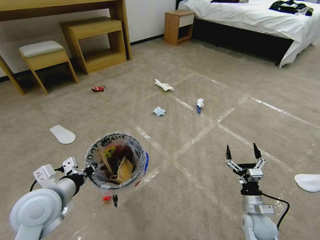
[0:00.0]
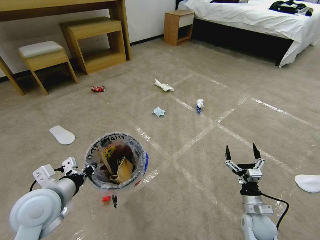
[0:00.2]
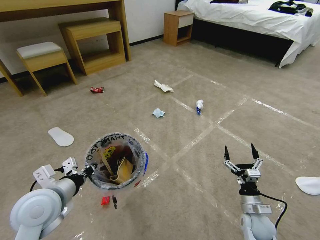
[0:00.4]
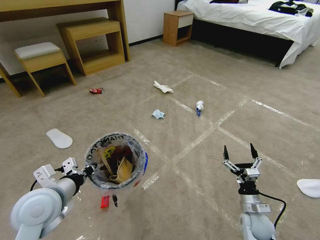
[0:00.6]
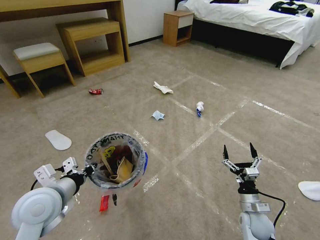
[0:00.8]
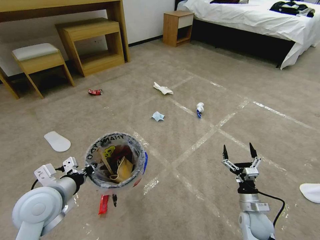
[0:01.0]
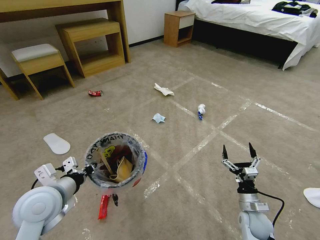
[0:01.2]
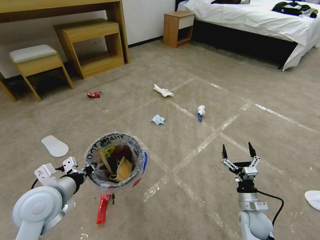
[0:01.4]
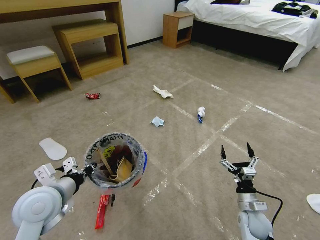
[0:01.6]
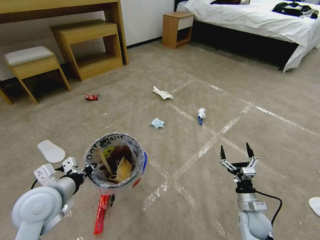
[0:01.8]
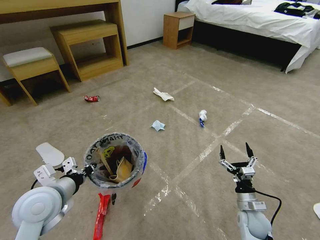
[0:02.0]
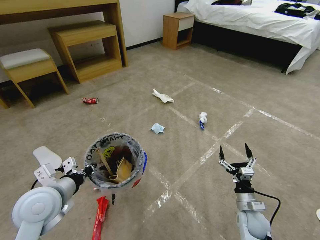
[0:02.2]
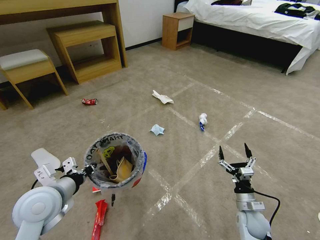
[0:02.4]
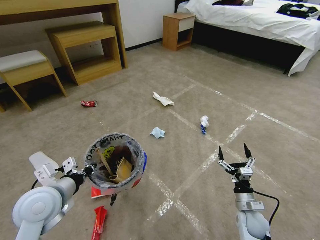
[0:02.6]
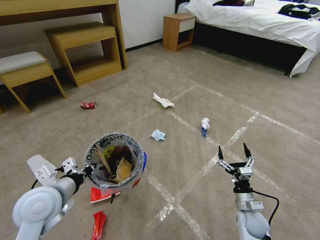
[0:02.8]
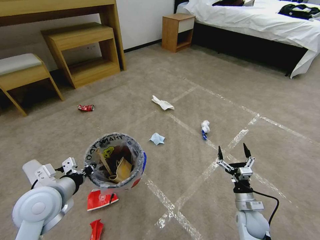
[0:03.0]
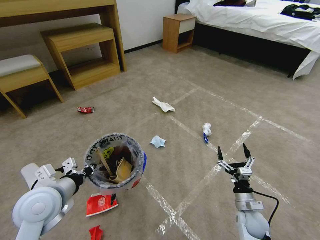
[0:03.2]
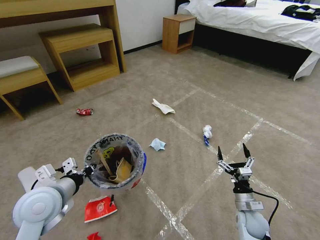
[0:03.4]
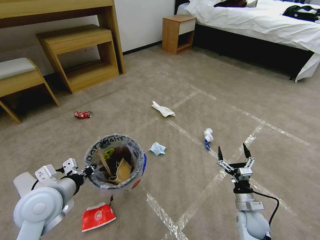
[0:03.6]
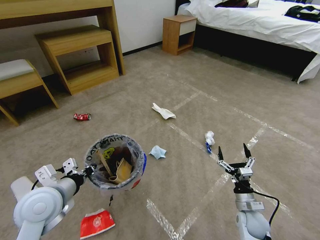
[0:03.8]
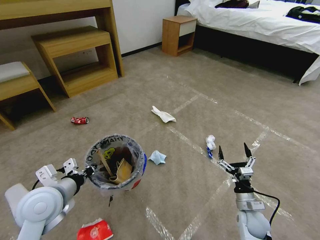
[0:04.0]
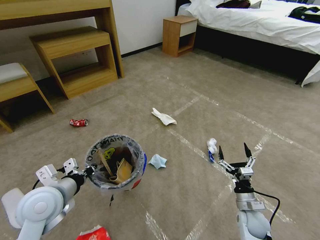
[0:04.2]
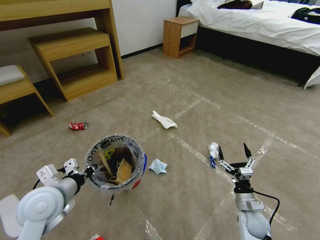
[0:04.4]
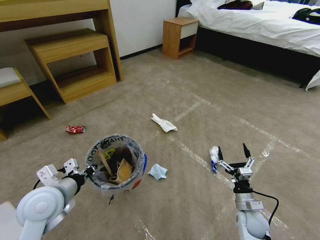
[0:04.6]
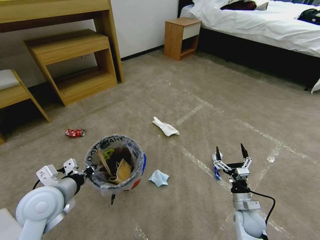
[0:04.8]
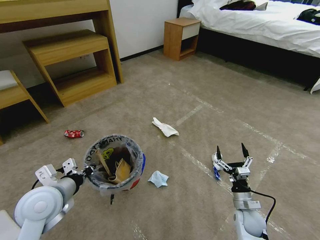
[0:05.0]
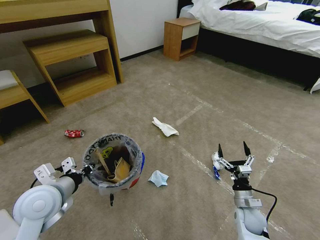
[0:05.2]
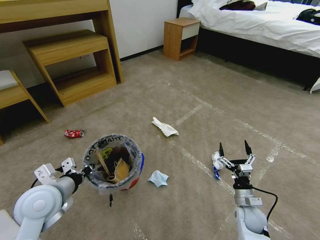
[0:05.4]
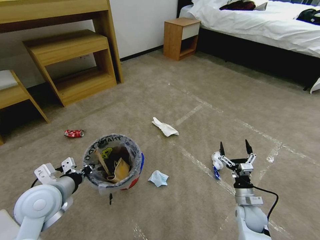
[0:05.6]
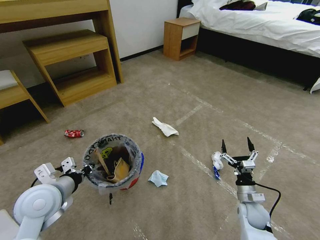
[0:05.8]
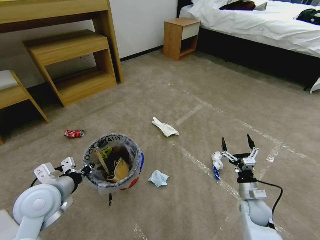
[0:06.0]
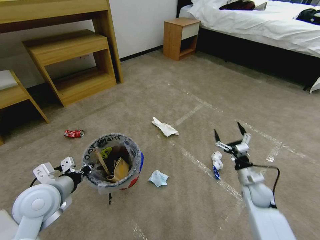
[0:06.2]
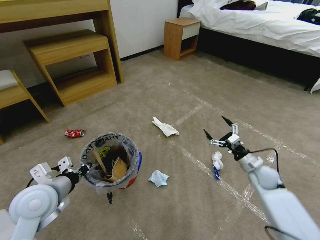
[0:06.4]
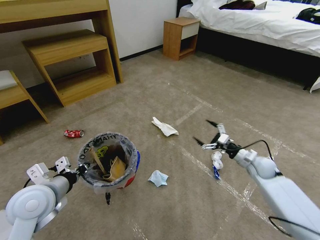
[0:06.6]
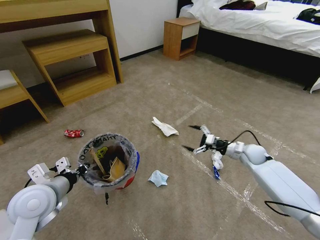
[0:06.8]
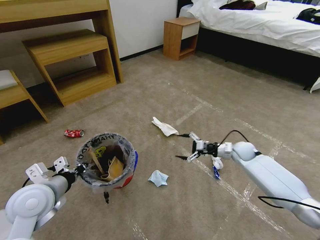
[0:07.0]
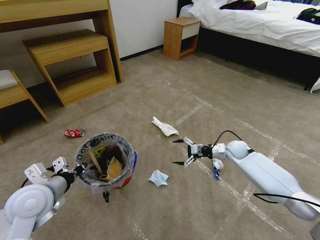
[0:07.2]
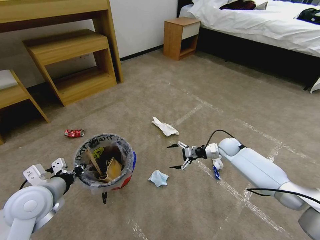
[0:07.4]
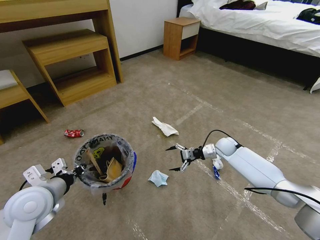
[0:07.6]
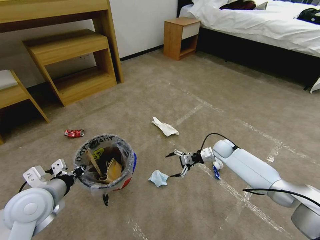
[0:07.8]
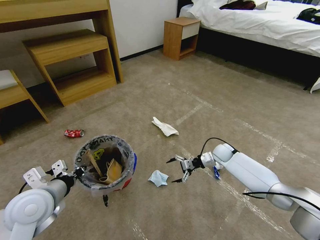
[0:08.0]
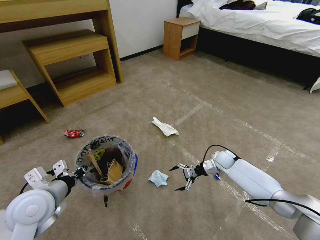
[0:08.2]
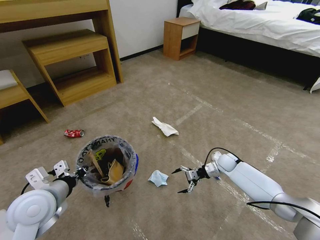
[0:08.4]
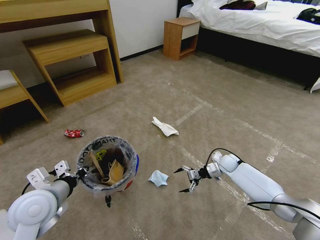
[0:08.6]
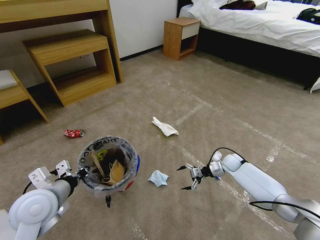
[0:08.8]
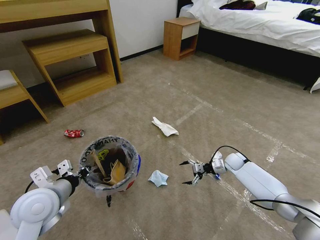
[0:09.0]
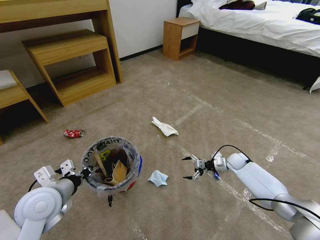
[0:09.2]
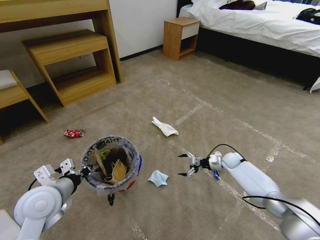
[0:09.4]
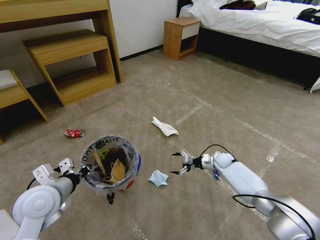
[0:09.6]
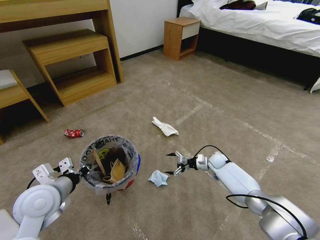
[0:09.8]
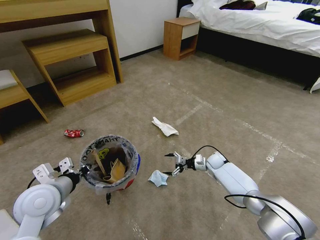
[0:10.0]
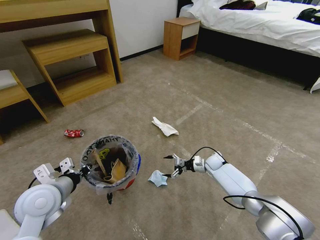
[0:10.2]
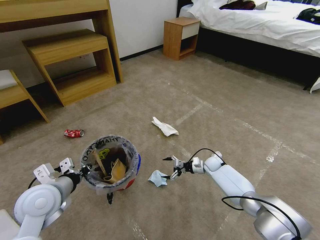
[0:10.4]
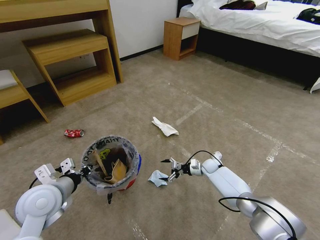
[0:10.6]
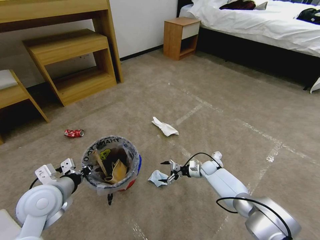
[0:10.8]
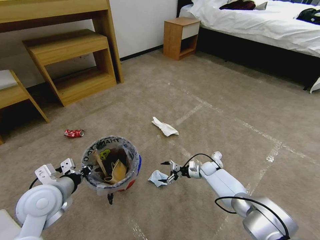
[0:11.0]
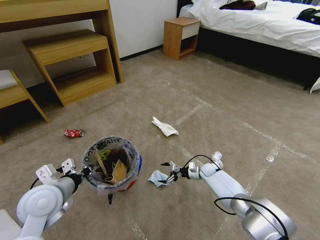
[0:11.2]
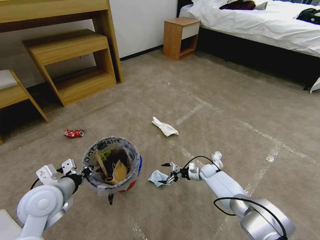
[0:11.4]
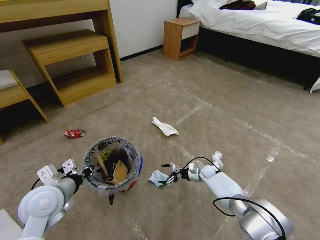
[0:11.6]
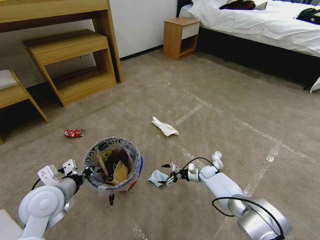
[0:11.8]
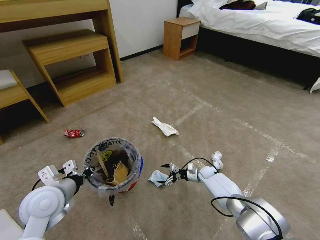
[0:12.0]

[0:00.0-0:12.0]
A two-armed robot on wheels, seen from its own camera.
Task of the whole recording: Pick up the trash bin and place the garbage on the floor into it.
0:04.4 to 0:06.0: The grippers move only a little.
0:06.0 to 0:07.6: The right gripper heads forward, covering about 25 cm.
0:07.6 to 0:09.0: The right gripper is displaced downward and to the right by about 10 cm.
0:09.0 to 0:10.4: The right gripper goes about 10 cm to the left.
0:10.4 to 0:12.0: The right gripper goes about 5 cm downward.

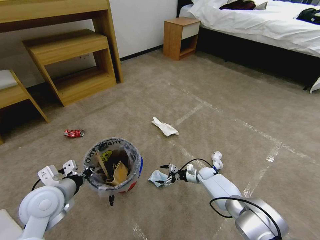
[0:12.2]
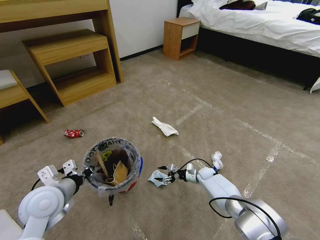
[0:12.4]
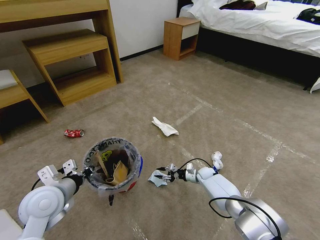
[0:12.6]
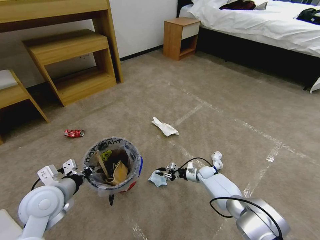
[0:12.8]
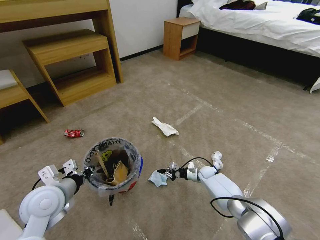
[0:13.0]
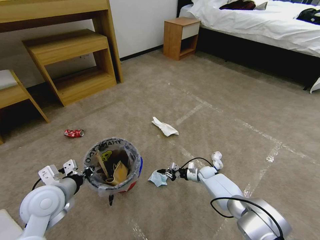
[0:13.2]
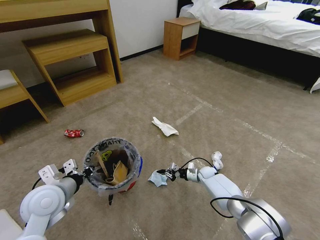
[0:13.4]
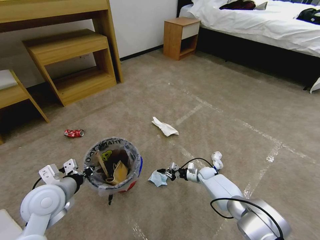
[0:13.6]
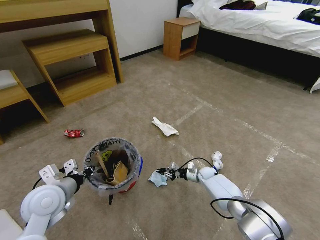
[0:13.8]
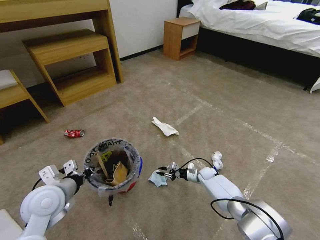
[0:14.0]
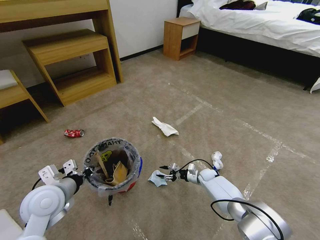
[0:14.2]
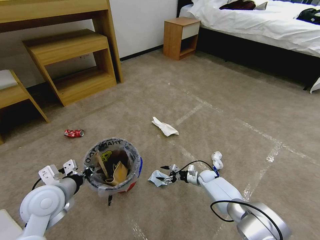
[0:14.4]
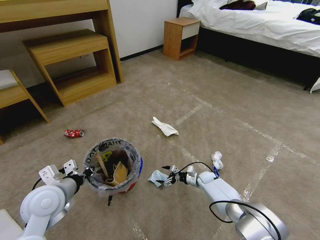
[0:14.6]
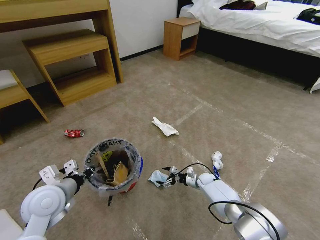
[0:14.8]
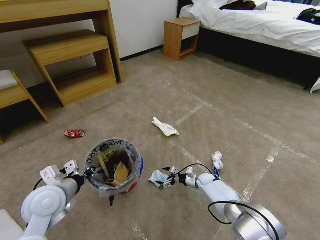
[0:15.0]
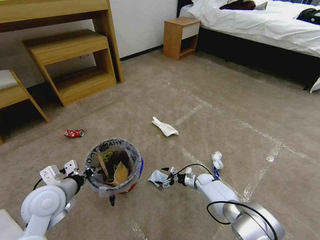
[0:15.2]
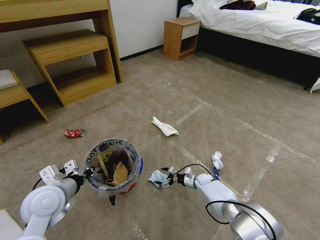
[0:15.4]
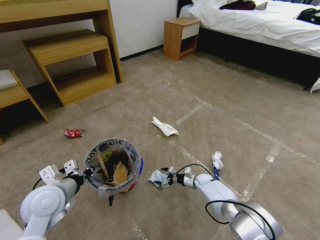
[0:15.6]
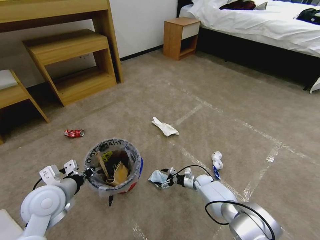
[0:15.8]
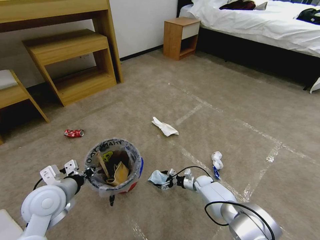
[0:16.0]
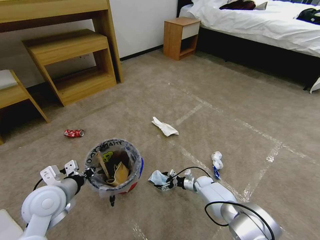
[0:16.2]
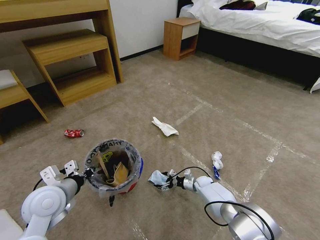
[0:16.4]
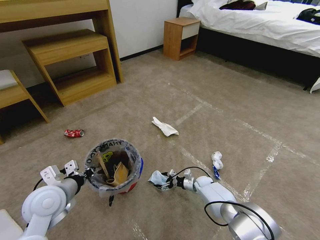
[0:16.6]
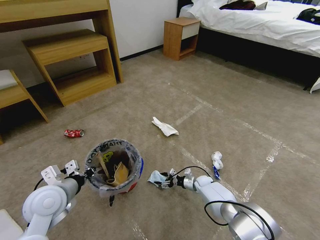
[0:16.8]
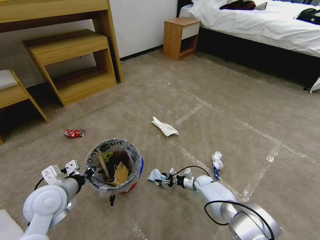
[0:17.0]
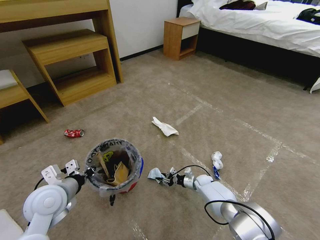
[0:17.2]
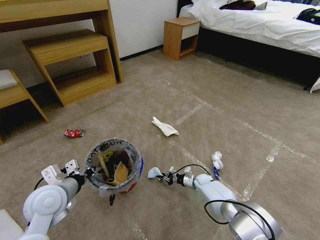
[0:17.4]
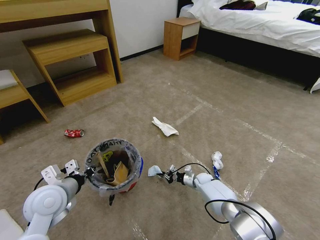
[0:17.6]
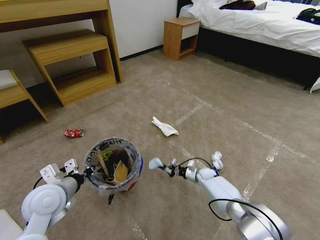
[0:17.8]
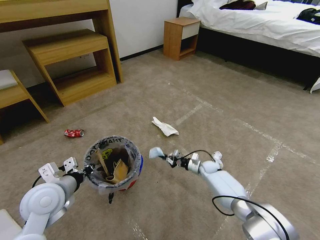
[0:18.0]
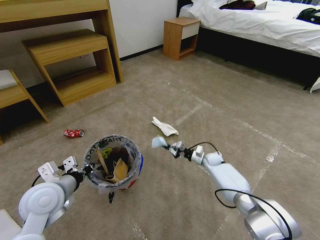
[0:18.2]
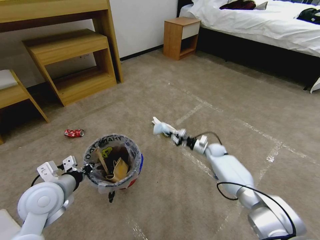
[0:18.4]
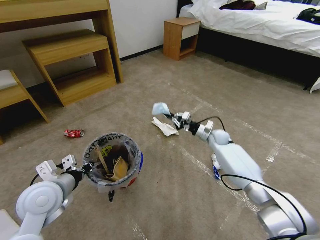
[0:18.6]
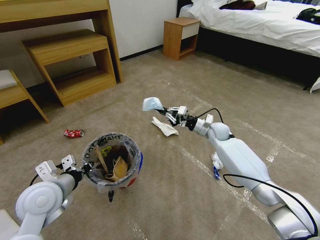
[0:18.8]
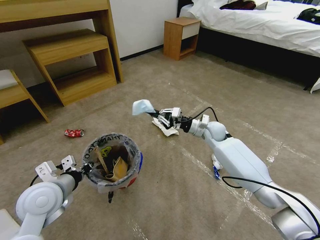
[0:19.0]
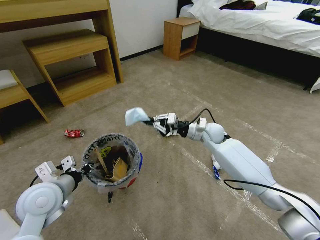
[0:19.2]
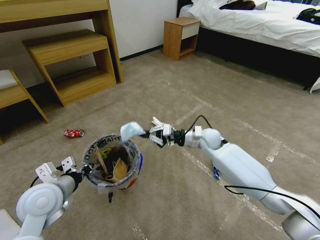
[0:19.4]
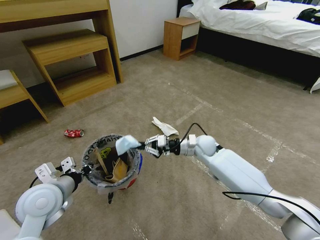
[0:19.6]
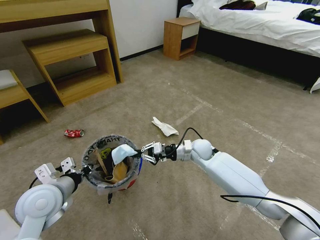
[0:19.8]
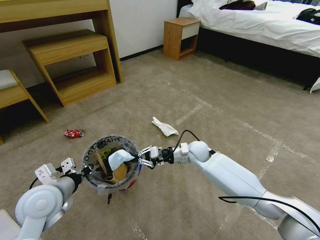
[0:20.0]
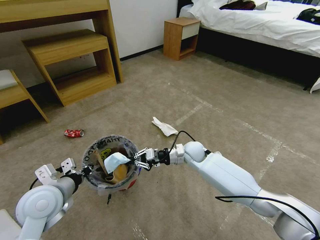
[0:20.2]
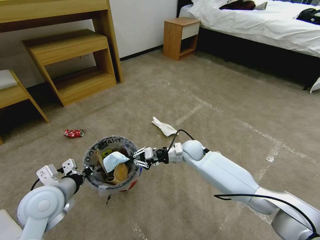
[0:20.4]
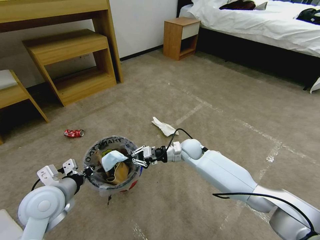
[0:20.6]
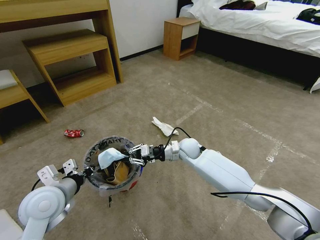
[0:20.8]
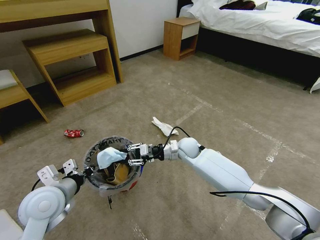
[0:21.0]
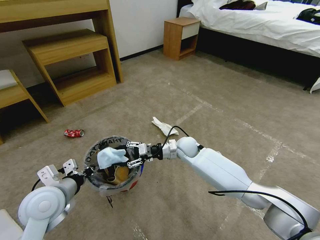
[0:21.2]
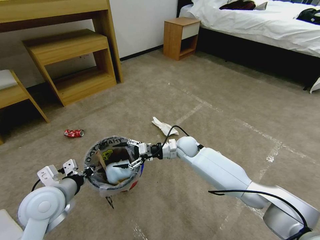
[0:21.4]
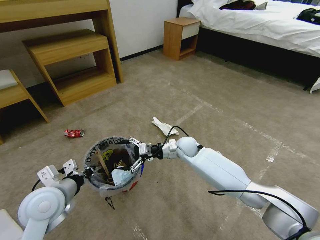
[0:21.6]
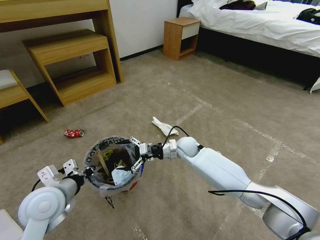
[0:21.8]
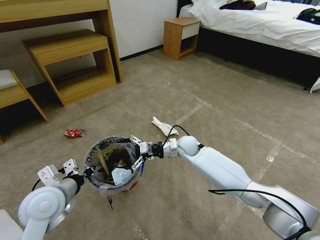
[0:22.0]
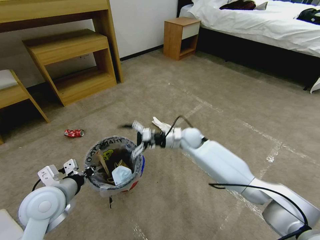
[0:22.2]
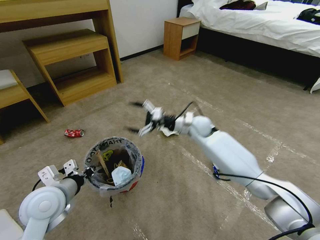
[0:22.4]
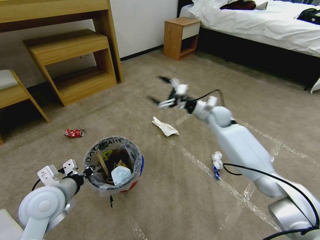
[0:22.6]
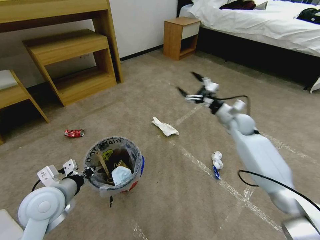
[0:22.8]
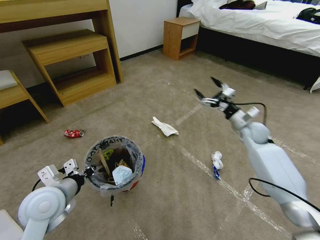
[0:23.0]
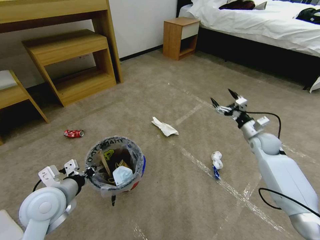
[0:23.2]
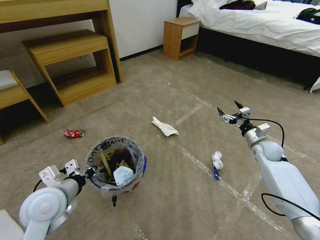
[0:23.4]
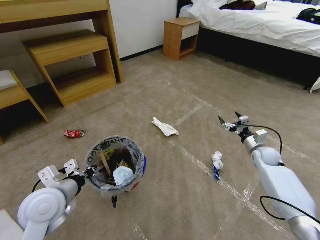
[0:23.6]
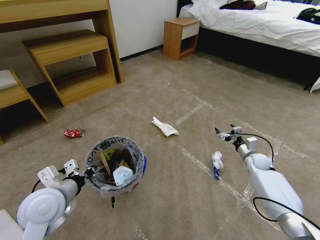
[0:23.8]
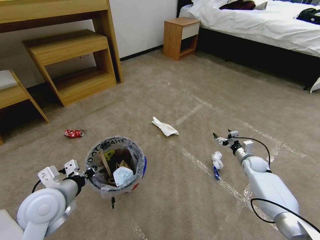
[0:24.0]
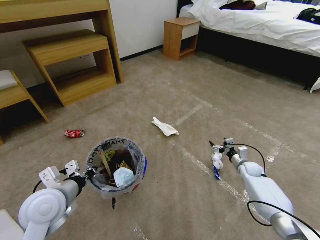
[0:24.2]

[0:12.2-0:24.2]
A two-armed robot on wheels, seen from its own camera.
Task of the whole recording: Pick up the trash bin and place the garbage on the floor into it.
0:12.2 to 0:13.8: The right gripper closes.
0:13.8 to 0:15.2: The right gripper opens up.
0:15.2 to 0:16.6: The grippers make only small movements.
0:16.6 to 0:18.2: The right gripper goes approximately 15 cm upward and forward, and closes up.
0:18.2 to 0:19.8: The right gripper heads upward and to the left, covering approximately 20 cm.
0:19.8 to 0:21.2: The right gripper travels to the left by some 5 cm, and opens.
0:21.2 to 0:22.6: The right gripper is displaced to the right, upward and forward by roughly 20 cm, and opens.
0:22.6 to 0:24.2: The right gripper is displaced downward and to the right by about 30 cm.
